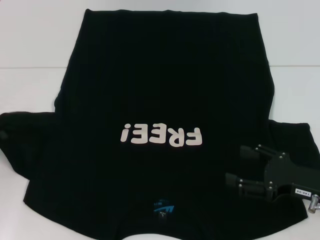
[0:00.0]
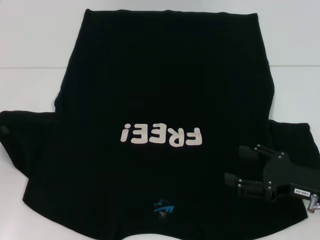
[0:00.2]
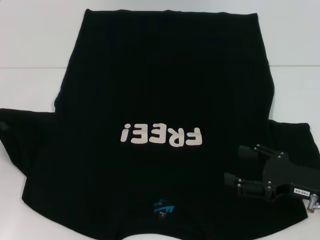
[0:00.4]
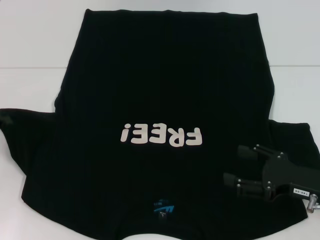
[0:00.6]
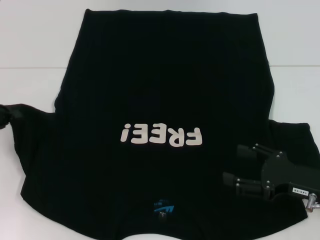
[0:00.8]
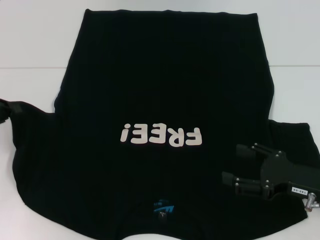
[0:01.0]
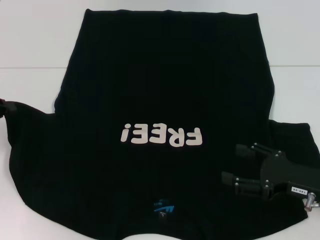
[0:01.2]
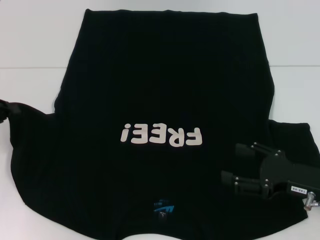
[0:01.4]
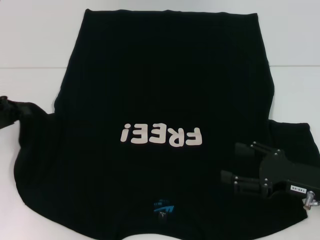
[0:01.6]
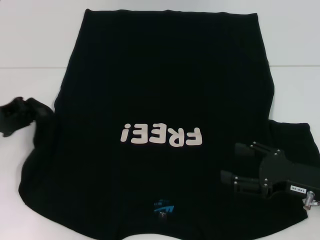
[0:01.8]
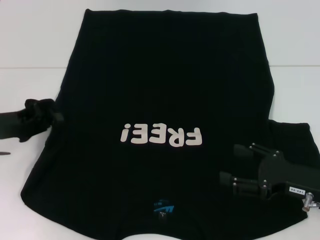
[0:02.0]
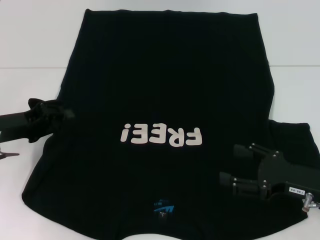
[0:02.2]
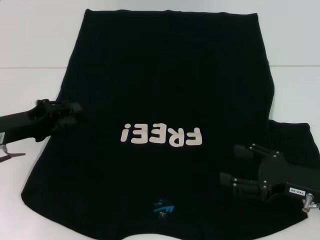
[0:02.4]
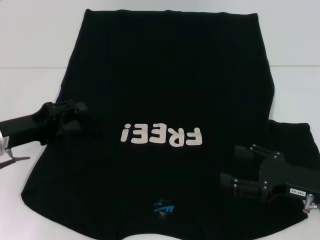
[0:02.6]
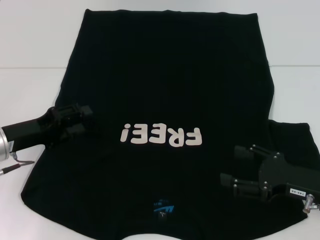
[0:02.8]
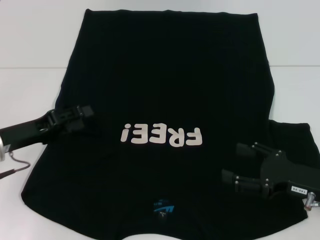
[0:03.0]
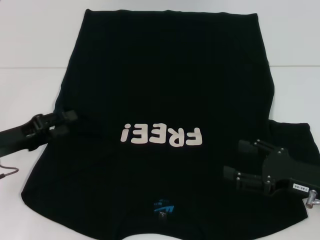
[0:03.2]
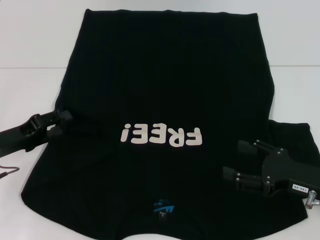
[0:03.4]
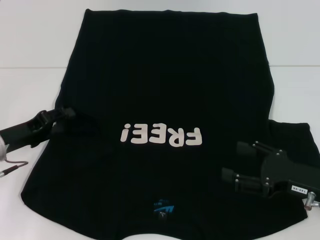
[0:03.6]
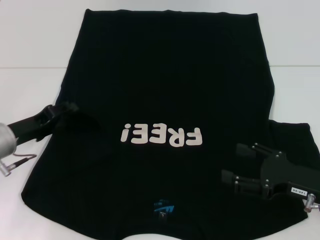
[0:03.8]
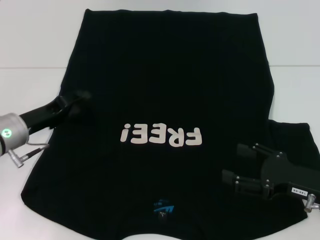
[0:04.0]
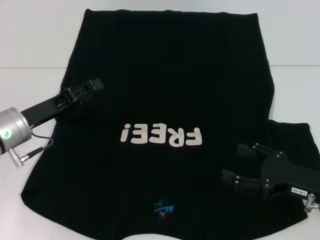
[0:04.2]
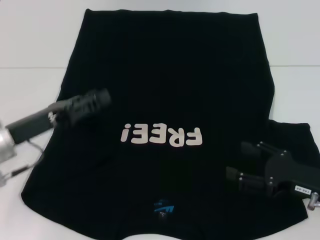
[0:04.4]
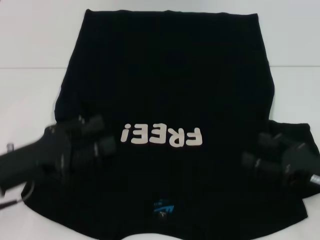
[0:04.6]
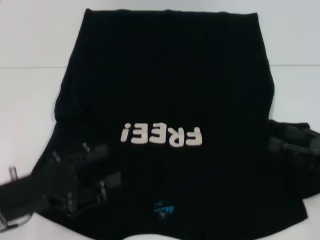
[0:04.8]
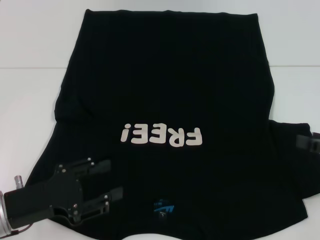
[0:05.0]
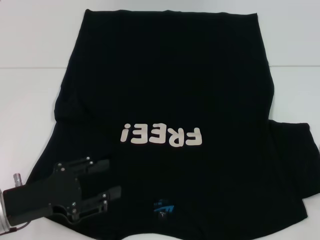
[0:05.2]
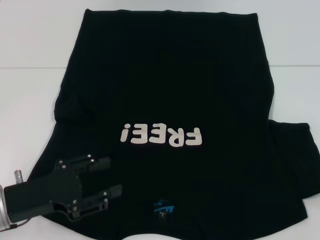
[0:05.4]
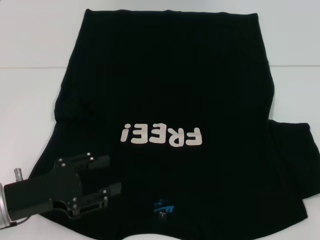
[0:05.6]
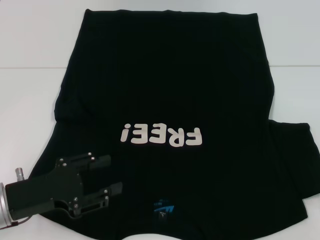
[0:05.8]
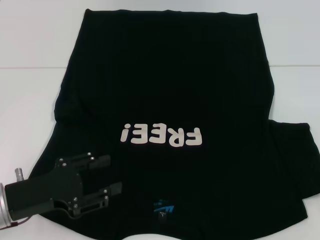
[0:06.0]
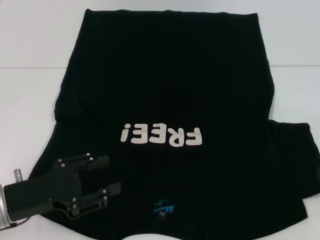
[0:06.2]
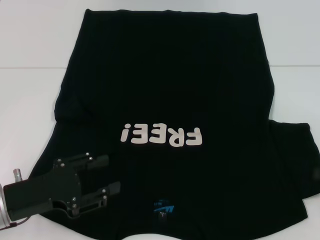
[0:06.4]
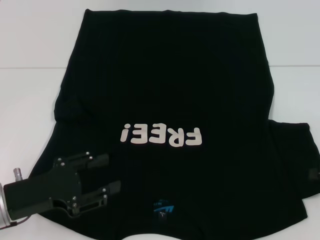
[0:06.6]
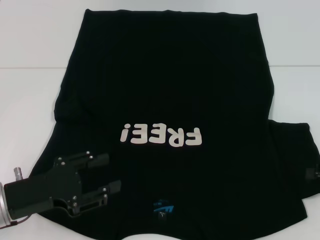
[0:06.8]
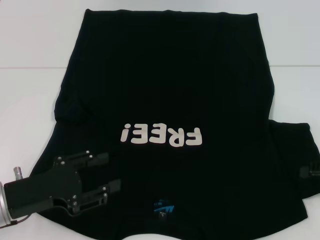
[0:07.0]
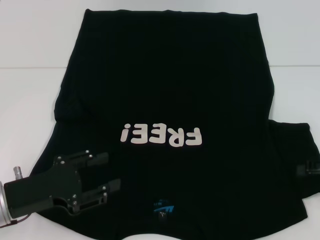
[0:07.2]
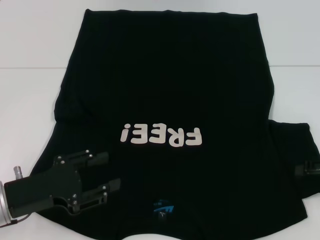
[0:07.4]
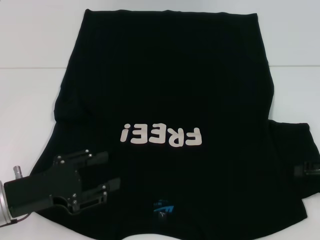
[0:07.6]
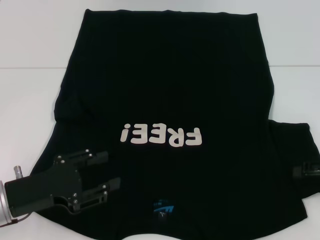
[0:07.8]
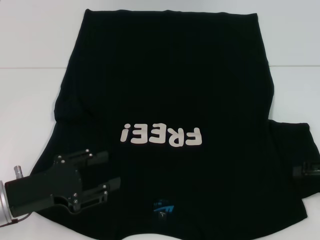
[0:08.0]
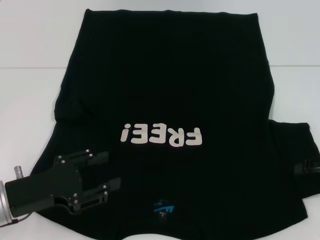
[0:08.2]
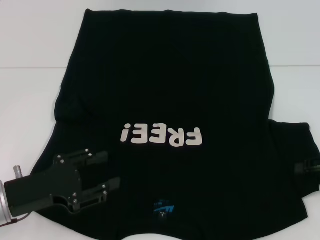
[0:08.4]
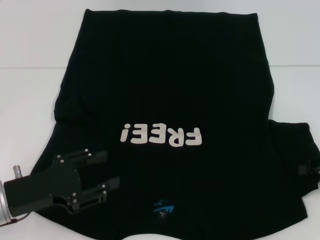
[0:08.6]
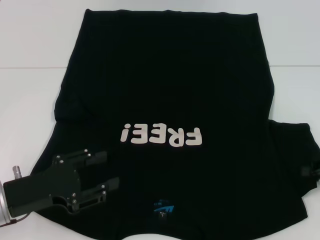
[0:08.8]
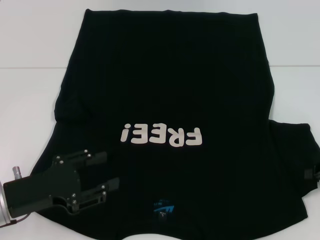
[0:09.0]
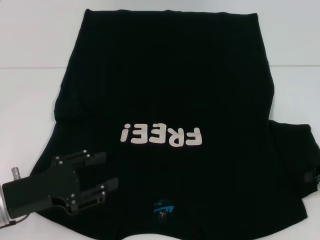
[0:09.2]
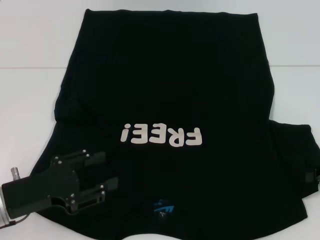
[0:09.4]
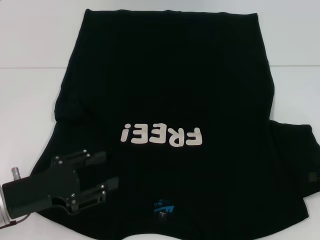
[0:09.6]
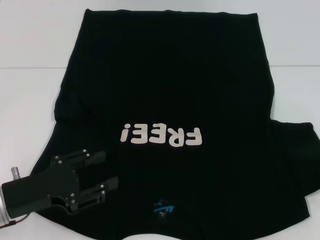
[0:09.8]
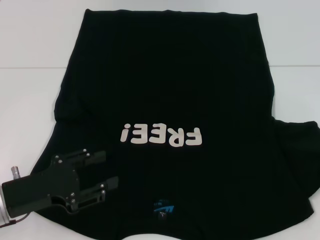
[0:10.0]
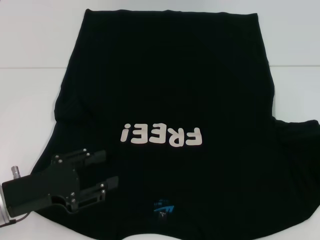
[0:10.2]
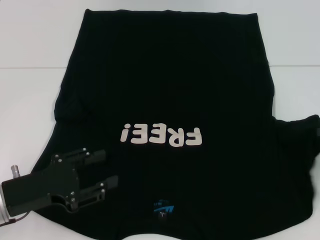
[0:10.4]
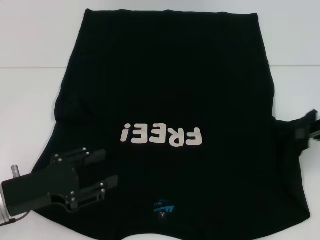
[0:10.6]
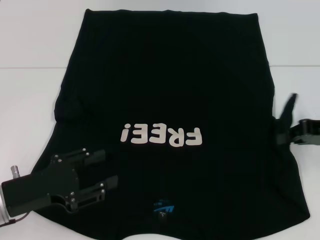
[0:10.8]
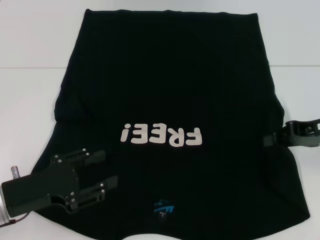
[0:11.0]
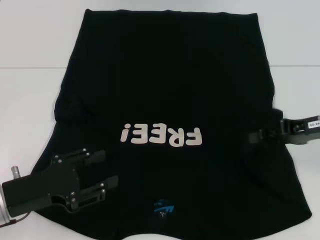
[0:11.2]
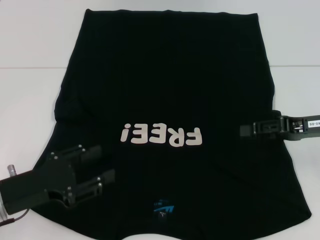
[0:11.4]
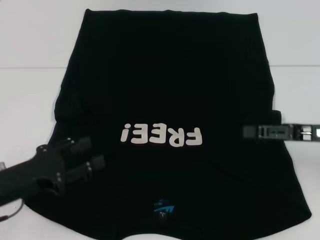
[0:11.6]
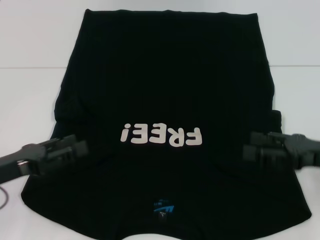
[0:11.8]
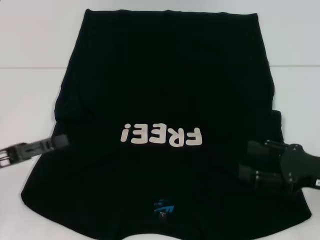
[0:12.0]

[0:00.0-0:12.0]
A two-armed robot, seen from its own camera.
Step, 0:00.0 to 0:04.0: Fold the bottom left sleeve with your left hand.
Step, 0:04.2 to 0:11.6: Fold the bottom right sleeve with your right hand.
0:00.0 to 0:01.6: The left gripper shifts by roughly 5 cm.
0:01.6 to 0:03.0: The left gripper moves to the right, about 5 cm, and opens up.
0:04.4 to 0:06.0: The left gripper travels backward by approximately 5 cm; the right gripper travels to the right and upward by approximately 15 cm.
0:06.0 to 0:07.6: The grippers make only small movements.
0:07.6 to 0:09.0: The right gripper closes its fingers.
0:09.0 to 0:10.4: The right gripper heads upward, covering about 5 cm.
0:10.4 to 0:12.0: The right gripper heads to the left, downward and backward, covering roughly 10 cm, and opens its fingers. The left gripper heads to the left, covering about 5 cm.

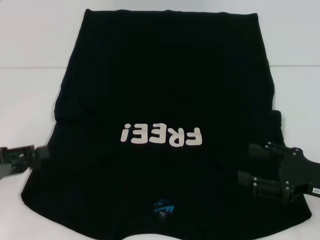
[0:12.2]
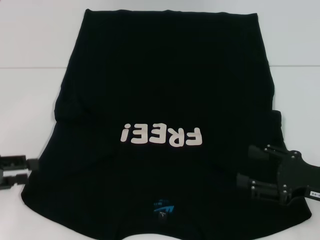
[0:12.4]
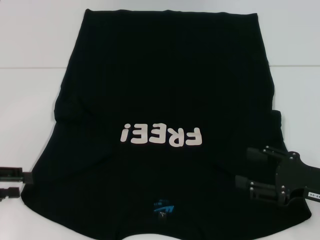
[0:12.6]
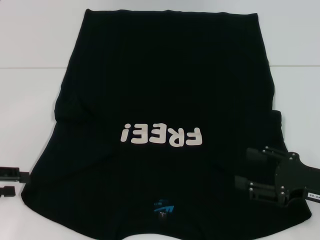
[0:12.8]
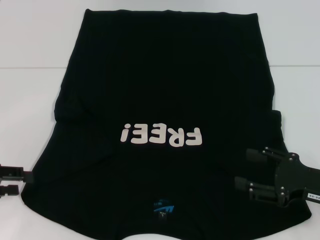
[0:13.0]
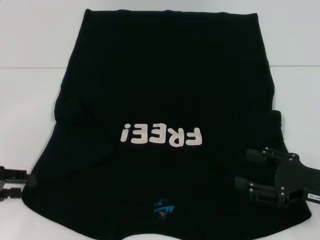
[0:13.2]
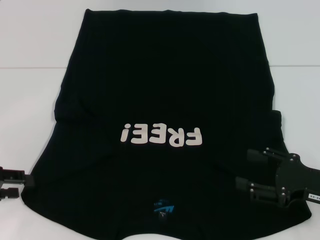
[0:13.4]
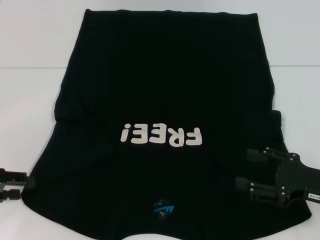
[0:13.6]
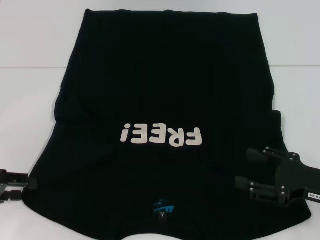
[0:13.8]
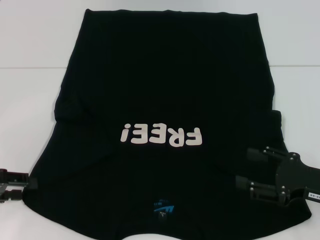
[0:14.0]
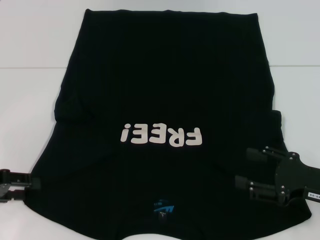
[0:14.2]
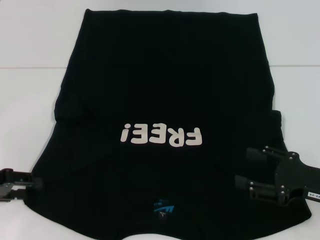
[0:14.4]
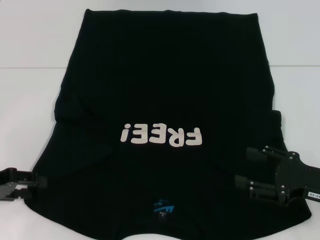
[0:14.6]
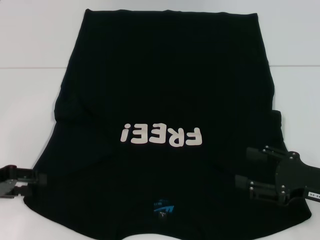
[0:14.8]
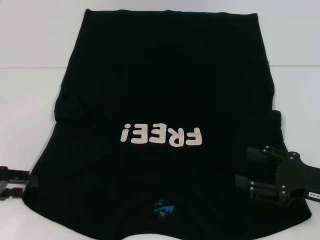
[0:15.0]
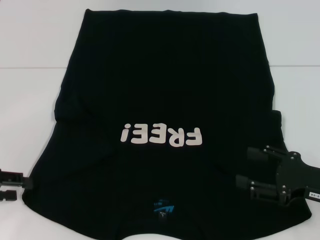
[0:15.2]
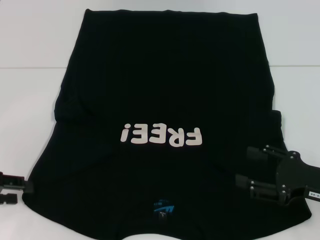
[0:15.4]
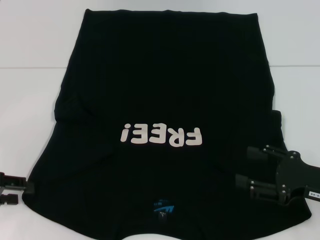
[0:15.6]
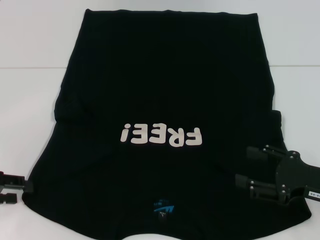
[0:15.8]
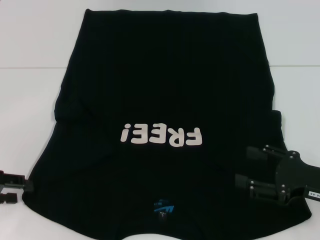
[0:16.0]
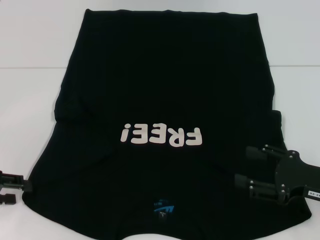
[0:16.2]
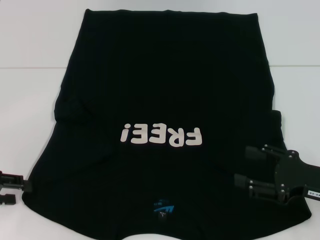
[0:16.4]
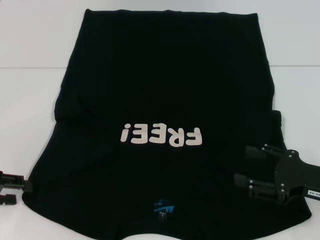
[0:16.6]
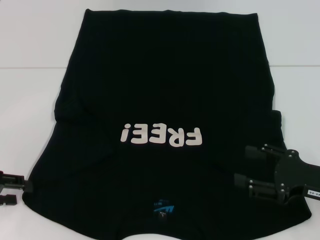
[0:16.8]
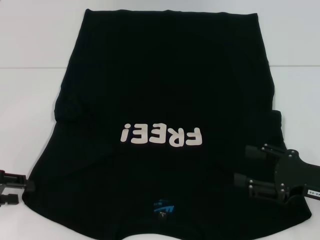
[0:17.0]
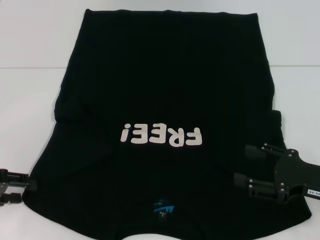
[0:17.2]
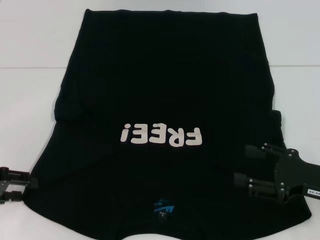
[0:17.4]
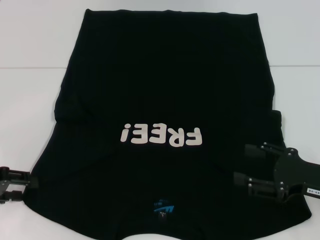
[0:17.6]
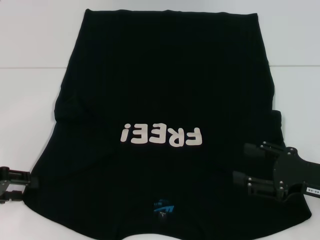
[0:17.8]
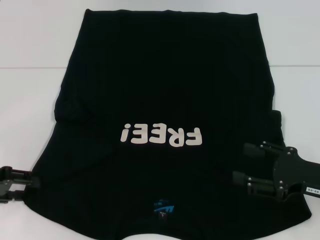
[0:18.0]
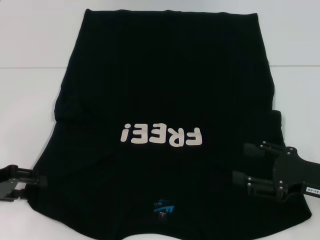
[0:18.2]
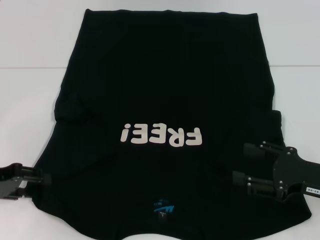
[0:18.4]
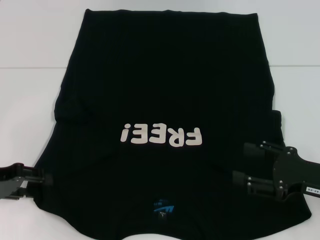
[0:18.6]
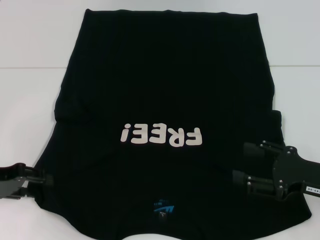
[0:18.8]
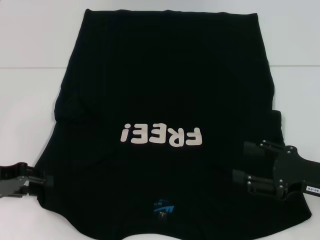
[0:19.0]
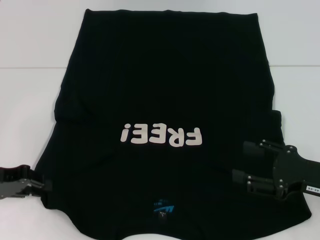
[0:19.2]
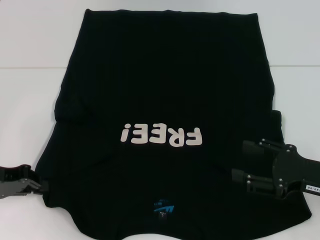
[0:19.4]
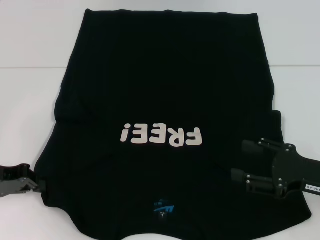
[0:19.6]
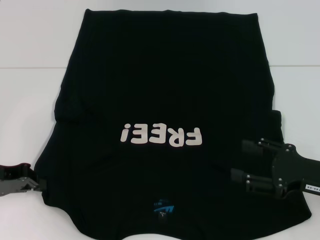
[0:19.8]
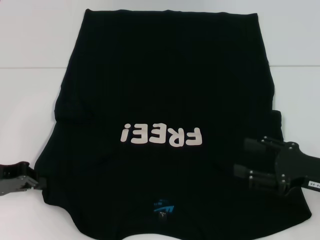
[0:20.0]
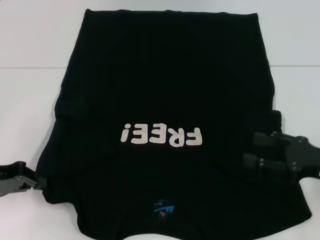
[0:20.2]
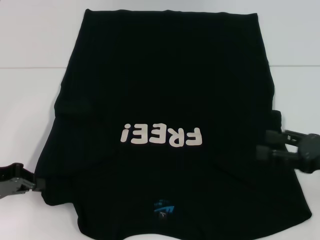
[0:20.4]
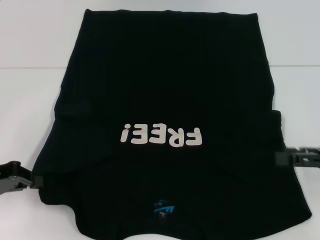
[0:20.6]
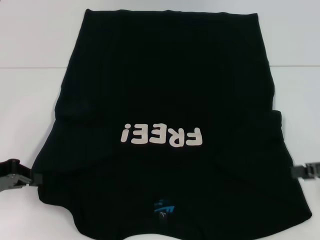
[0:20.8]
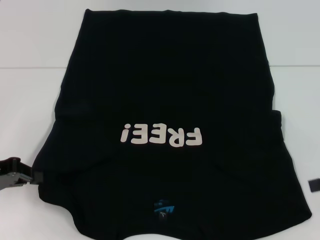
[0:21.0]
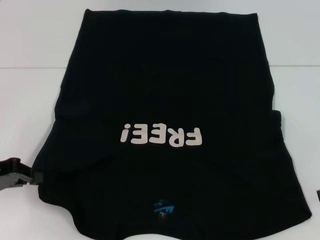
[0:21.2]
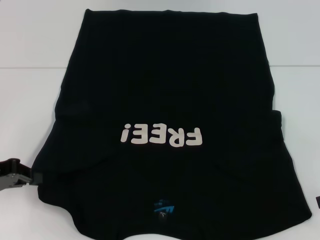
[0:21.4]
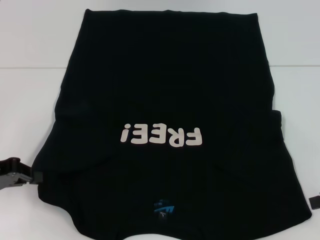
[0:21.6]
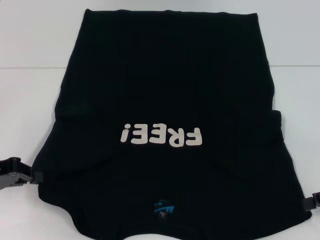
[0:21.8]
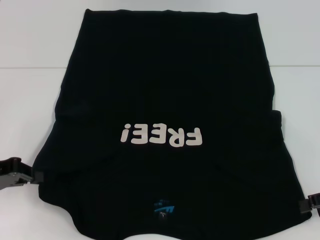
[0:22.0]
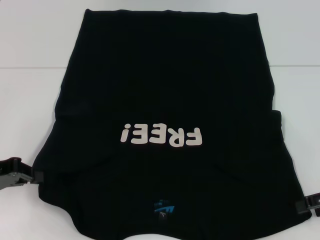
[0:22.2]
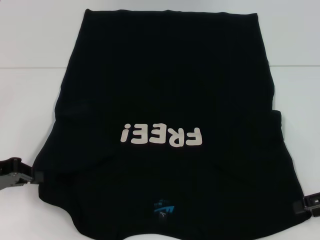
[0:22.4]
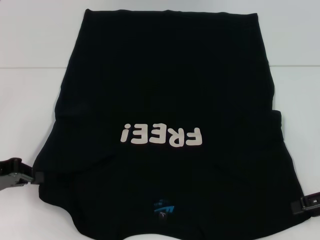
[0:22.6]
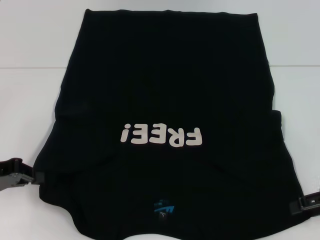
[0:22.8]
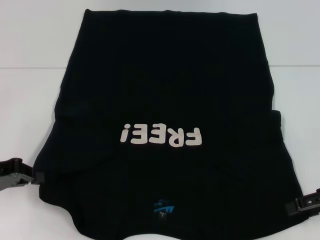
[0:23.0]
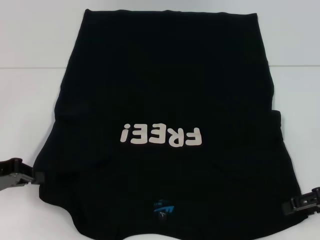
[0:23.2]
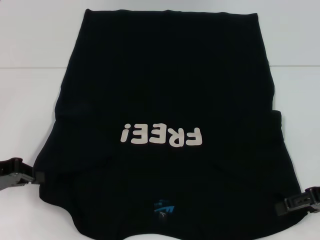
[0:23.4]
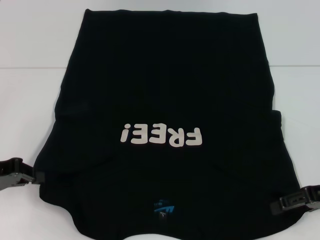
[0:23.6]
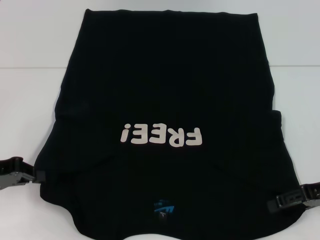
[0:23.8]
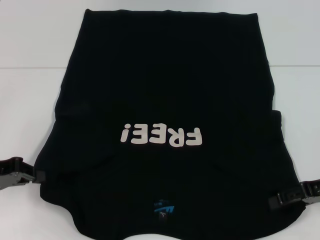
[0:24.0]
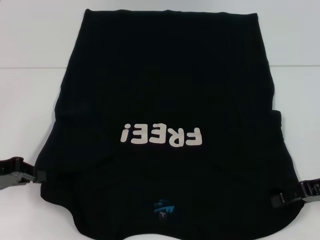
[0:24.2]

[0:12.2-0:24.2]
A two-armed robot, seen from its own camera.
Step, 0:12.2 to 0:19.6: Grab the bottom left corner with your left hand.
0:15.2 to 0:16.6: Neither gripper changes place.
0:16.6 to 0:18.2: The grippers move only a little.
0:18.2 to 0:19.8: The left gripper closes.
0:19.8 to 0:21.2: The right gripper heads to the right and upward, covering about 10 cm.
0:22.6 to 0:24.2: The grippers stay close to where they were, moving slightly.
